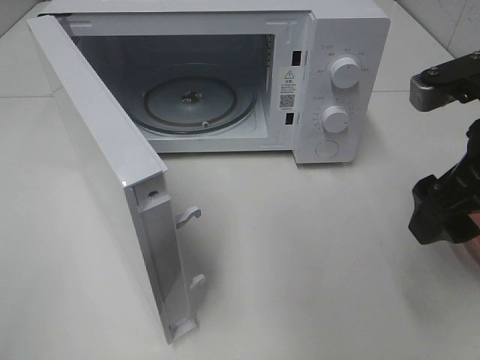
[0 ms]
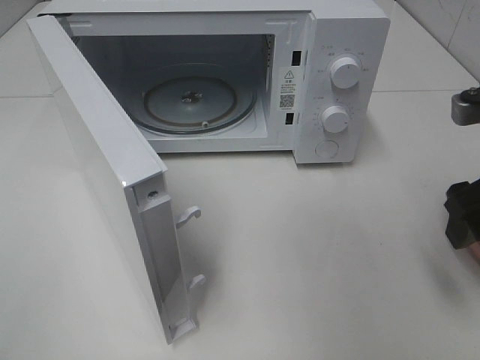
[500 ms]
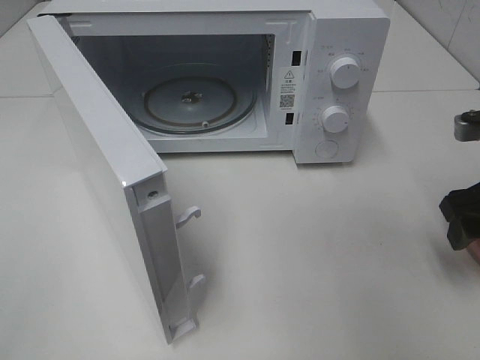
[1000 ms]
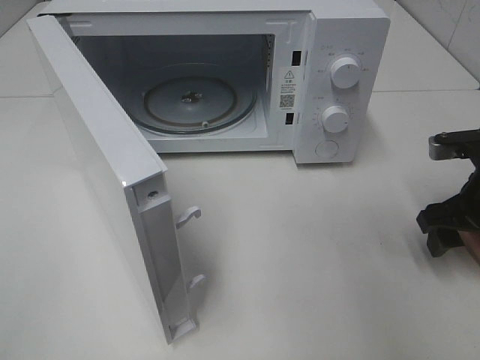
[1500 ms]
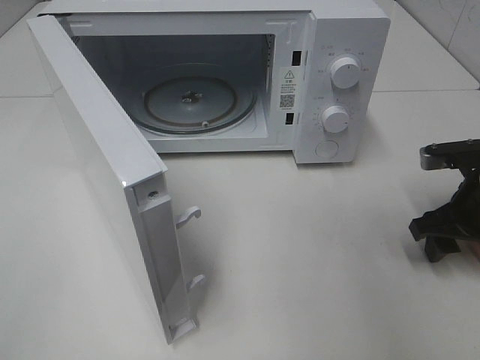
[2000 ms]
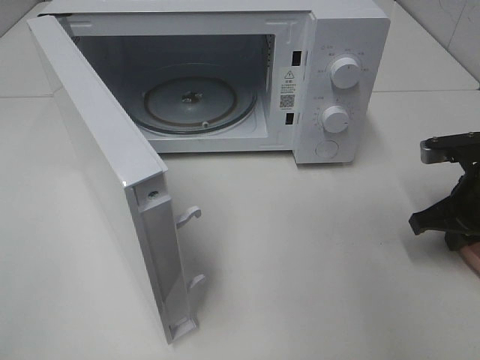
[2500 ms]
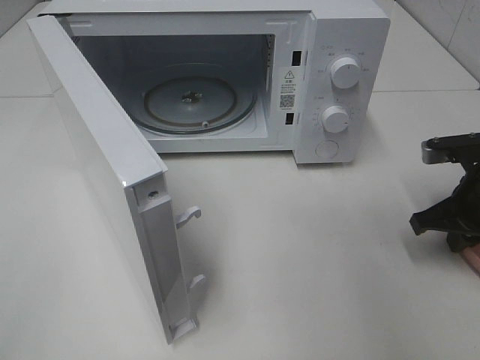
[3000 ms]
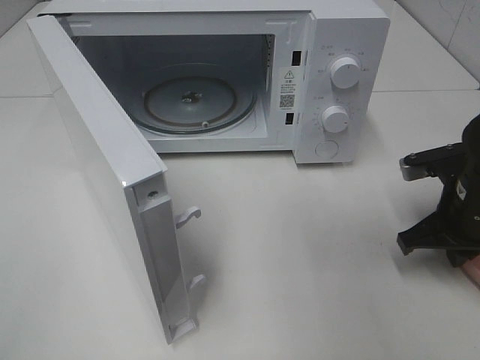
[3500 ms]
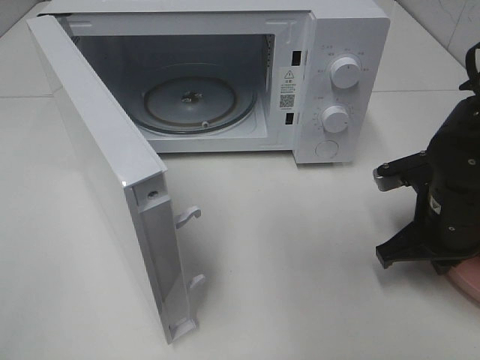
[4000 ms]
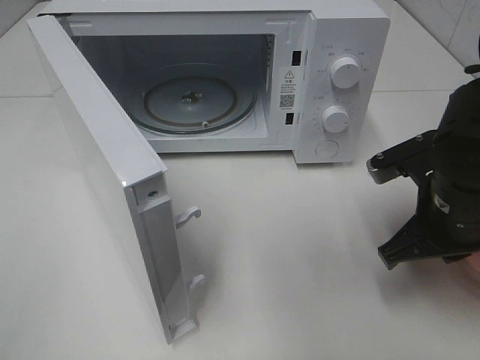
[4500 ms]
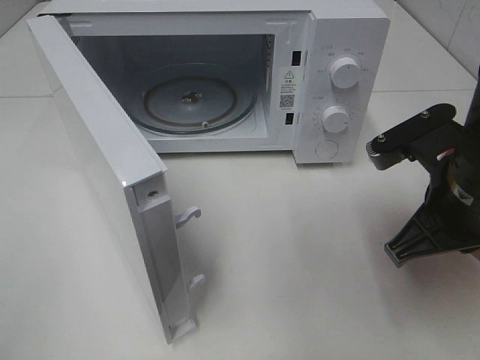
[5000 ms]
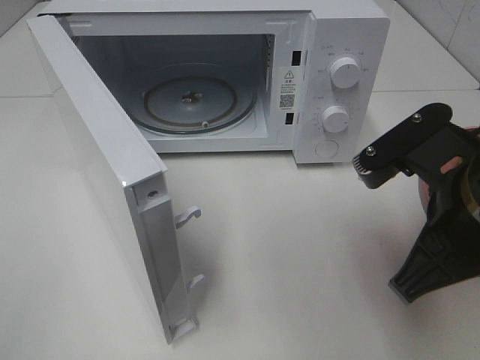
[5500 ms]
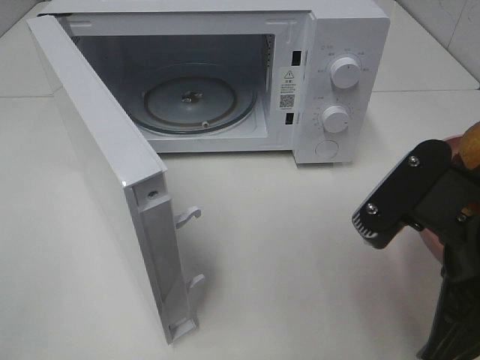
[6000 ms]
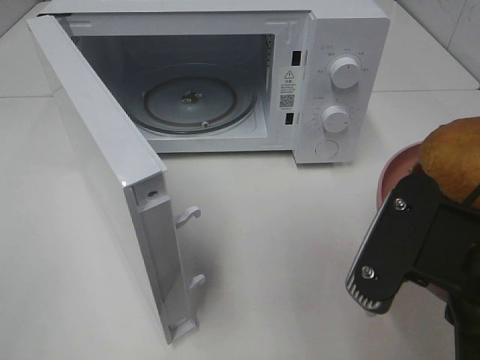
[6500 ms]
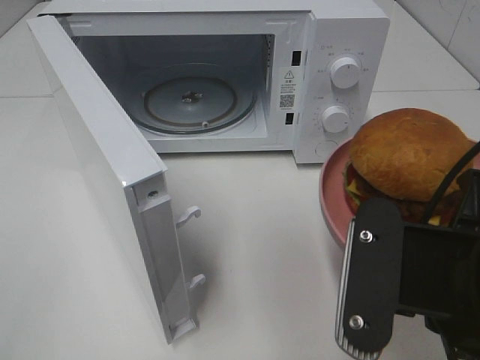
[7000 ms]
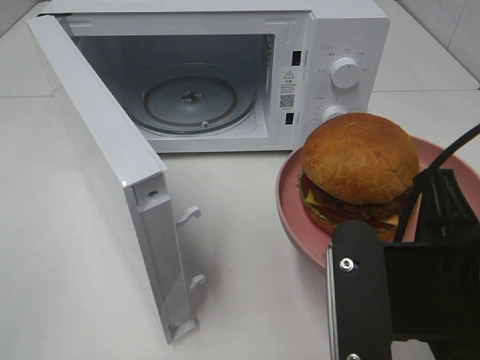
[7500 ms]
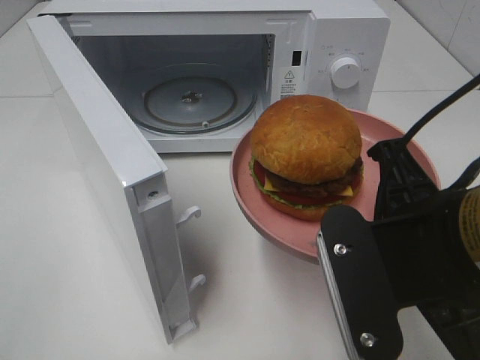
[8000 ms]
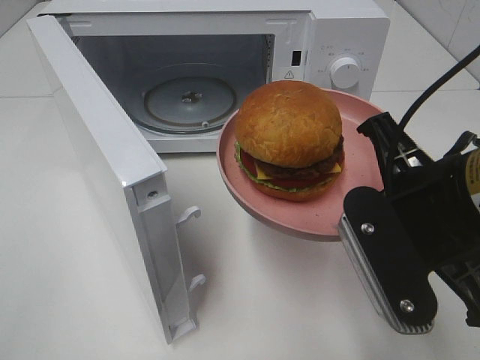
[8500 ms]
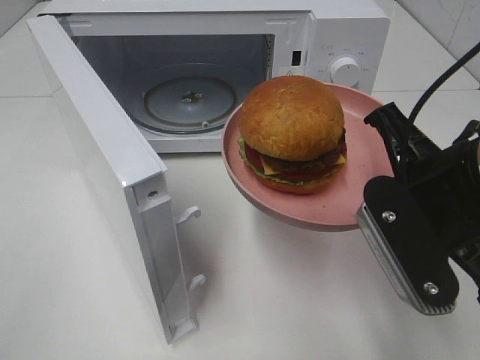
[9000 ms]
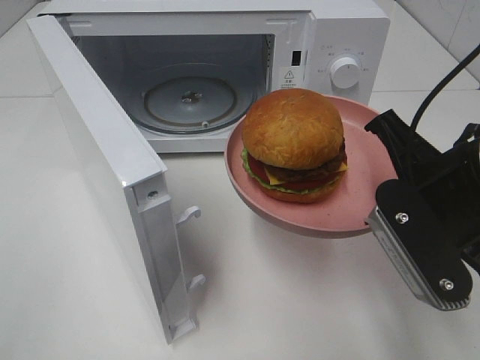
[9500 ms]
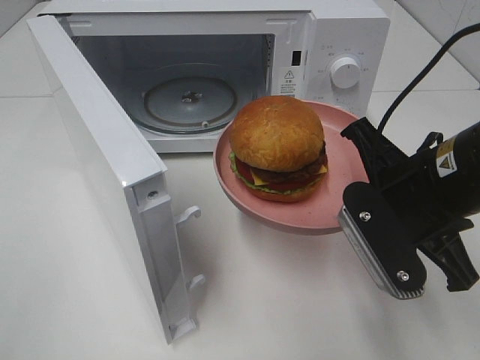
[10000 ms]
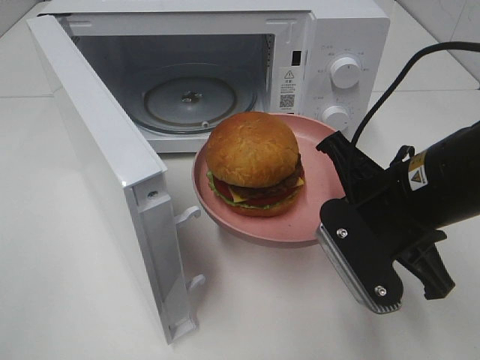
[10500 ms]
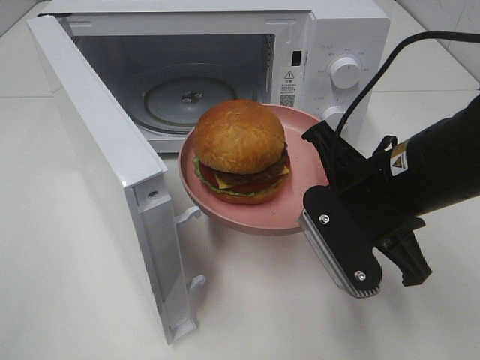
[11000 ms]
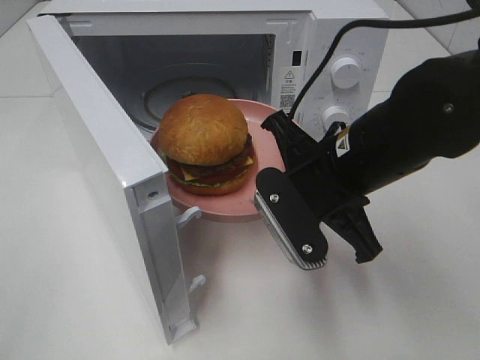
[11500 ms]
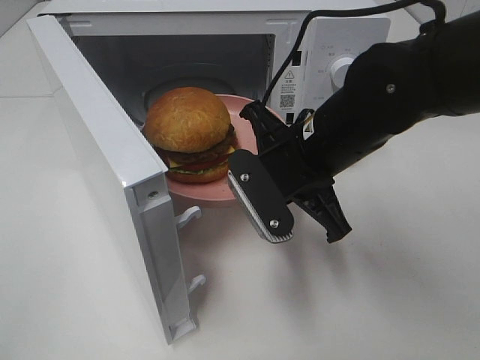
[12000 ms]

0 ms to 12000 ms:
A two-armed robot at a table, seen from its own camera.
Task of the whole recording: Heat the burger.
Step, 0 ms to 2000 ms: Right hand: grab the plate with the hamburger.
0 ms to 2000 ms: The right gripper moves downward, forward and to the right, roughly 15 cm.
2000 ms to 4000 ms: The right gripper heads to the left, covering approximately 5 cm, and closes.
4000 ms to 6000 ms: The right gripper heads backward, upward and to the left, covering some 20 cm.
8000 ms to 10000 ms: The right gripper travels forward by about 10 cm.
10000 ms to 12000 ms: The right gripper heads to the left and forward, covering some 10 cm.

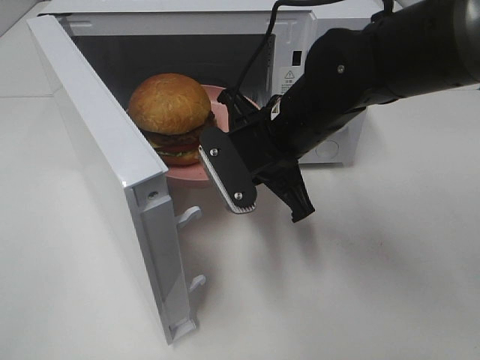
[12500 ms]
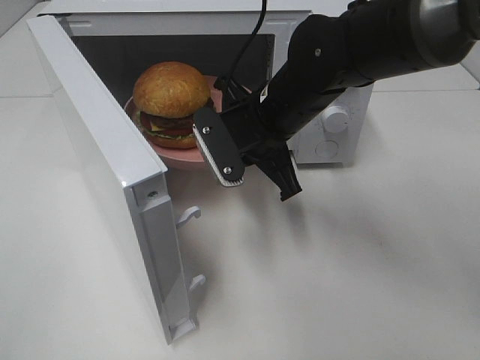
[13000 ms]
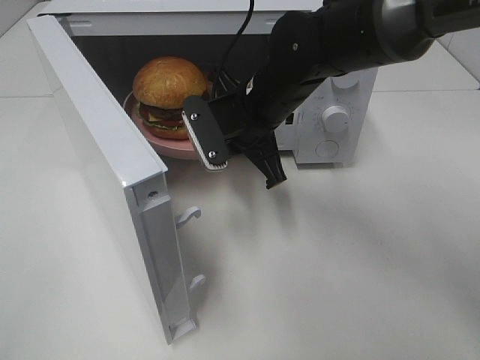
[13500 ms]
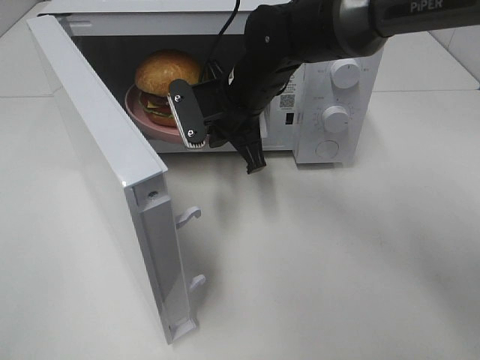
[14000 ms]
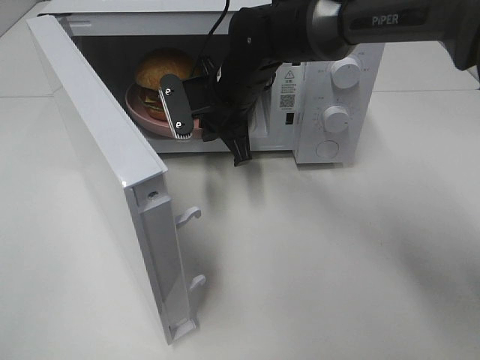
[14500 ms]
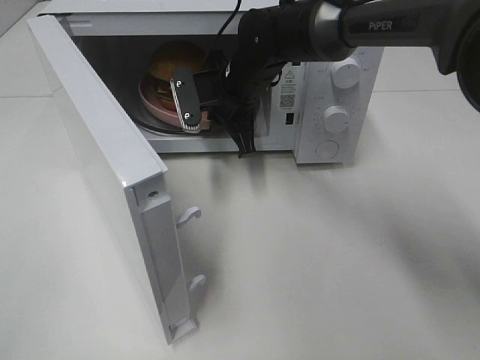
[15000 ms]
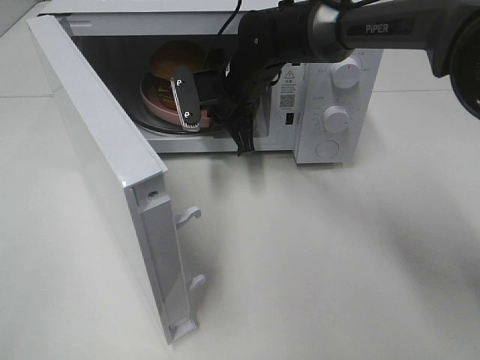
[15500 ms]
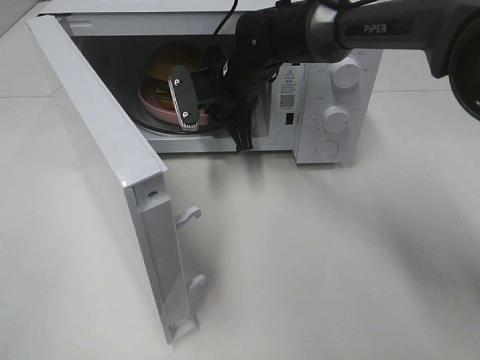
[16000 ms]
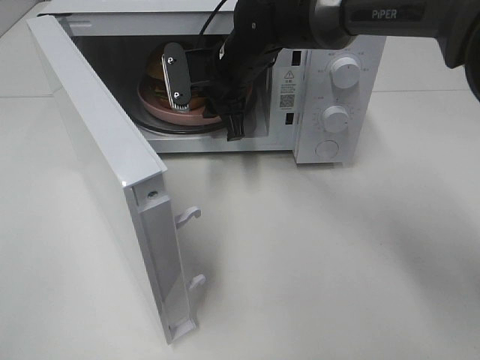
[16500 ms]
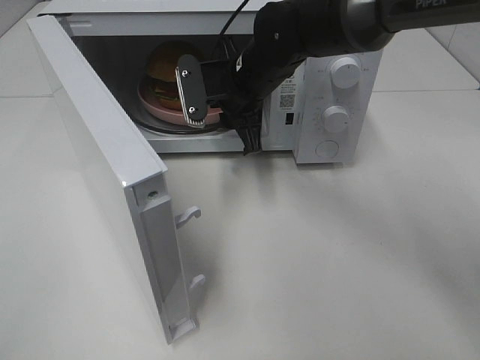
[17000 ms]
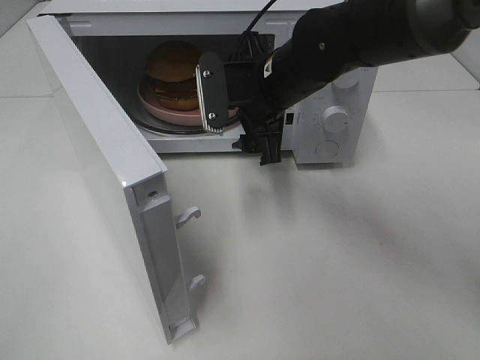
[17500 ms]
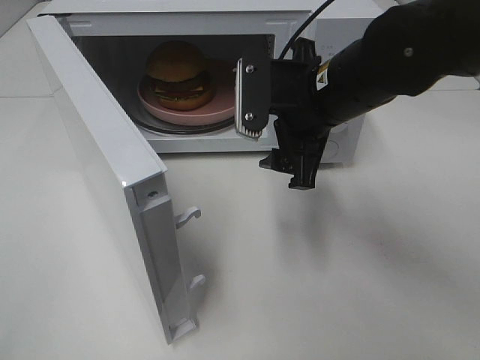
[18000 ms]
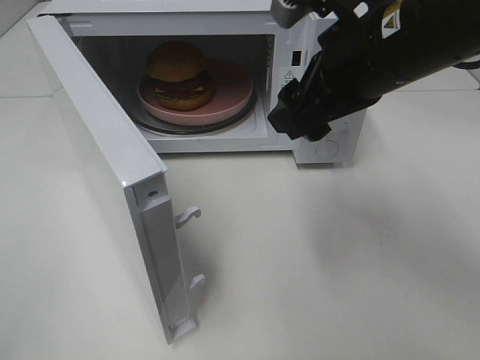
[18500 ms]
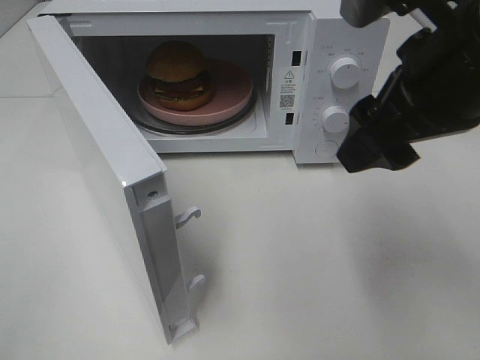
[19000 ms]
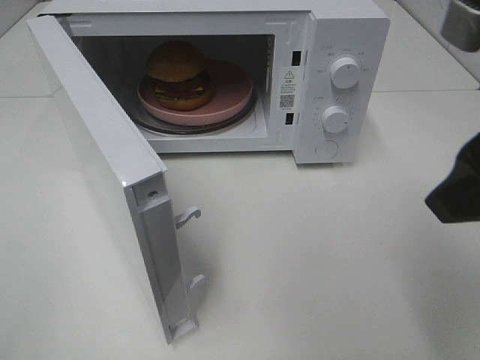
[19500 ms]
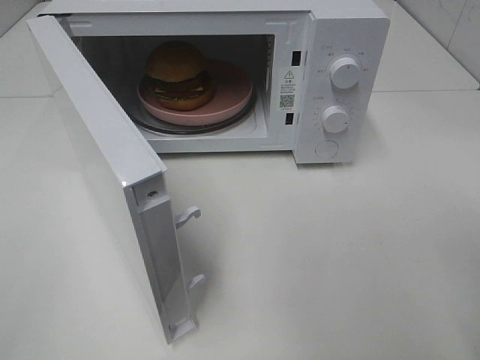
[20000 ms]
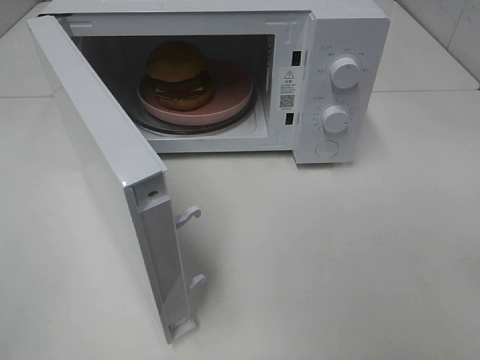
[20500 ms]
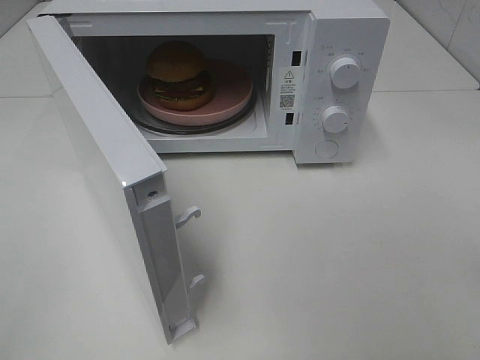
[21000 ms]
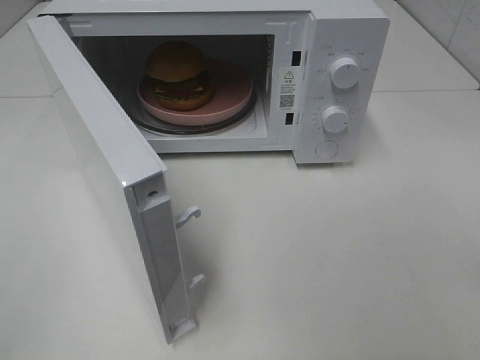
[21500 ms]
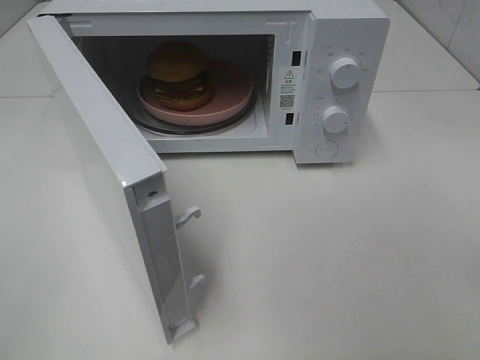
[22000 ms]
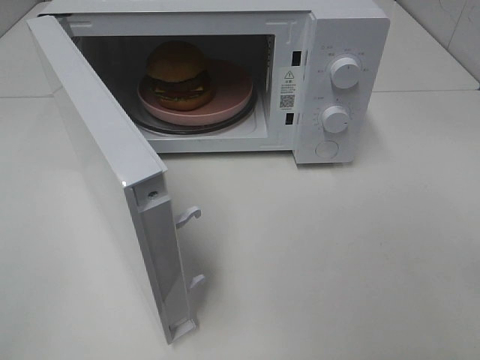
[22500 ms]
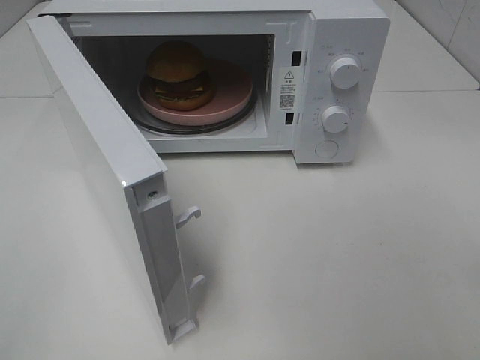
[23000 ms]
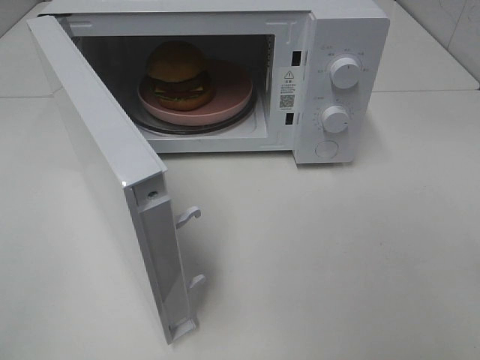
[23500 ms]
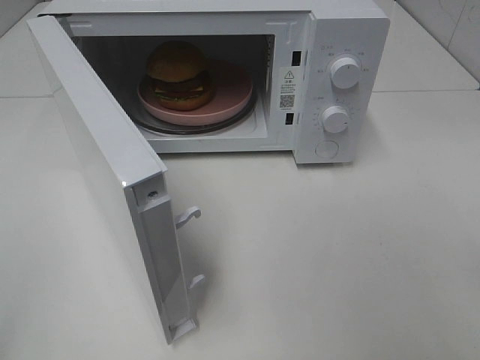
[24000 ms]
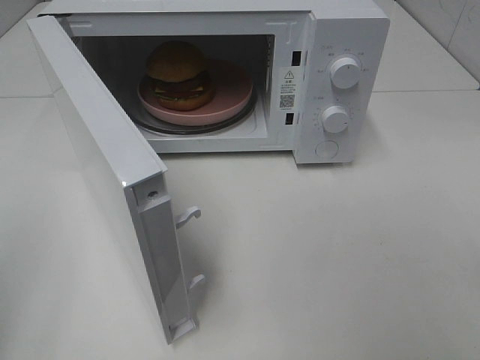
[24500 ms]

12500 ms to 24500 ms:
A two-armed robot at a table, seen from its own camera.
Task of the whole recording: Heat the burger.
Step, 12500 ms to 16000 ms: Right hand: place the plate in the microwave.
12500 ms to 14500 ms: The right gripper is displaced forward and to the left by some 10 cm.
14500 ms to 16500 ms: The right gripper opens up.
16500 ms to 18500 ms: The right gripper moves backward, to the right and upward, some 25 cm, and opens its fingers.
18500 ms to 20500 ms: The right gripper is displaced backward and to the right by approximately 30 cm.

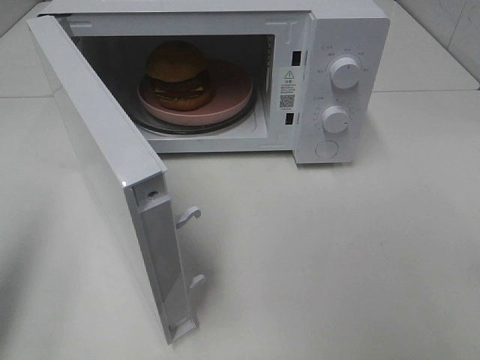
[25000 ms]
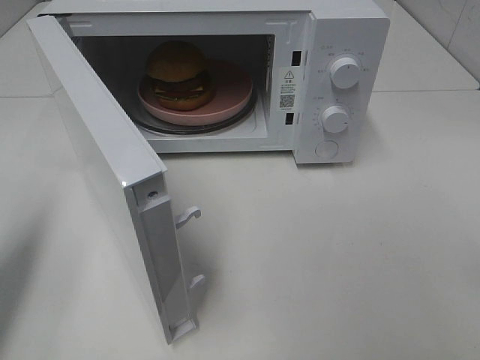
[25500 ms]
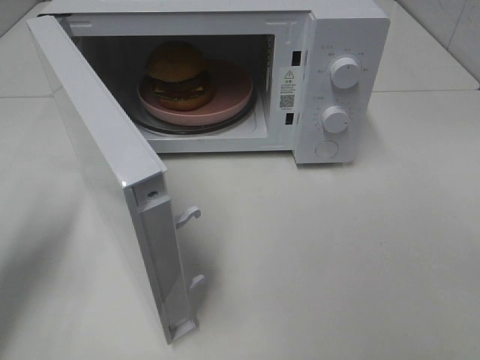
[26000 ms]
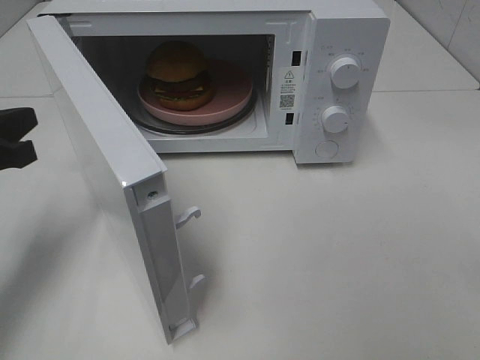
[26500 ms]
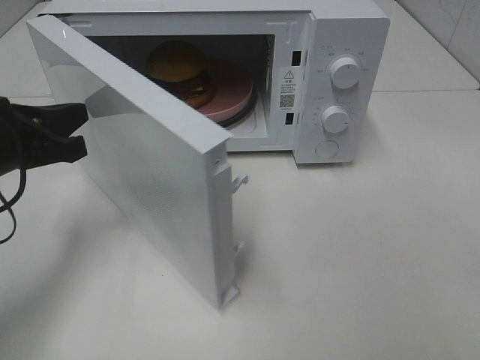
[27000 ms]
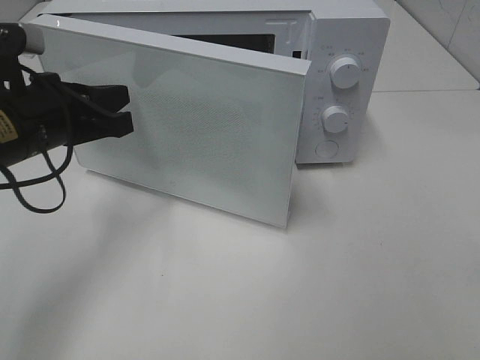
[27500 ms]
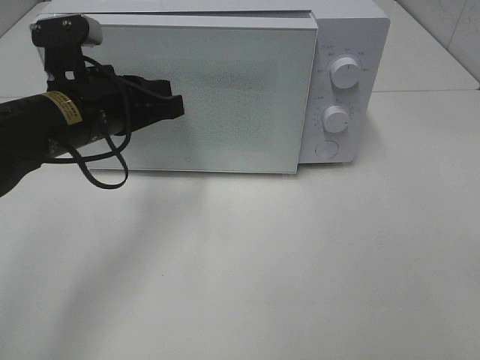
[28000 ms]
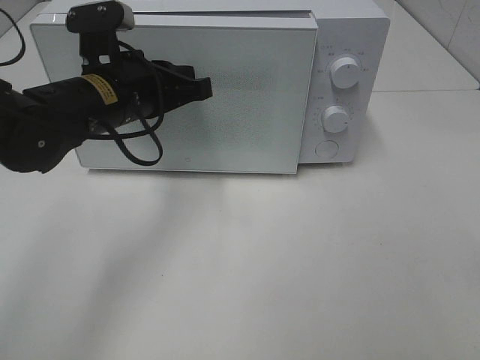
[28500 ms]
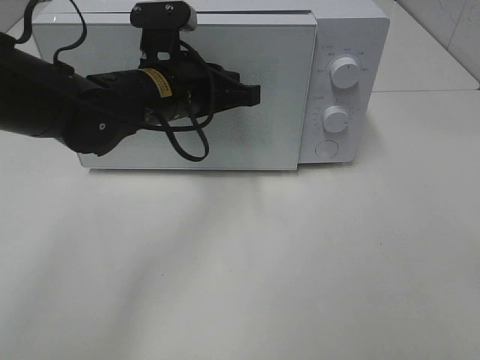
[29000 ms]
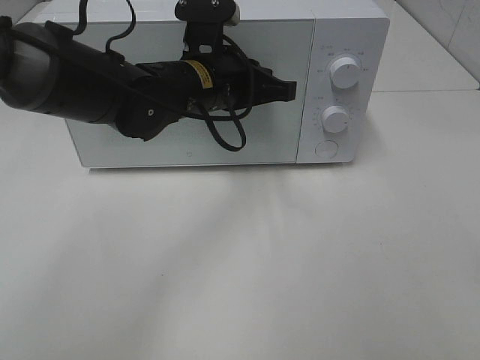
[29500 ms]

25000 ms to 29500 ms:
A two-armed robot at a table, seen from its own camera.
Task of the whole recording: Heat the burger.
25000 ms to 27000 ms: The left gripper goes roughly 20 cm forward, downward and to the right.
27000 ms to 29500 ms: The left gripper travels to the right and forward by about 20 cm.
